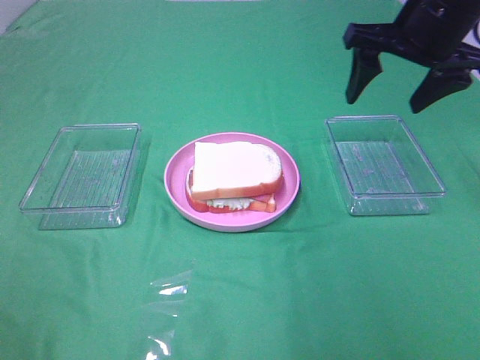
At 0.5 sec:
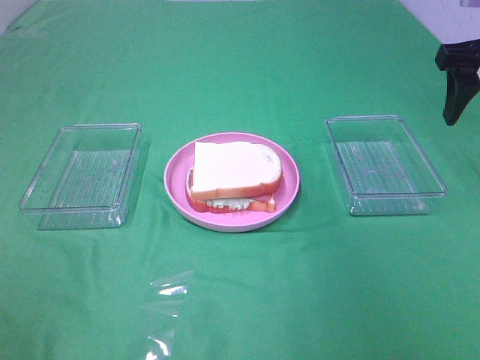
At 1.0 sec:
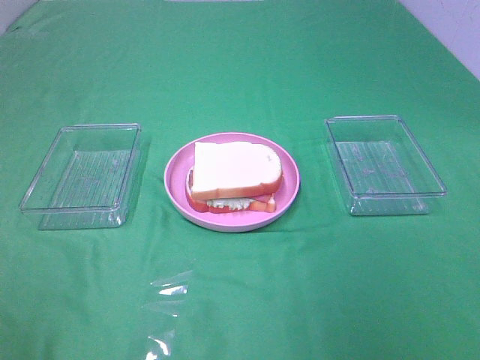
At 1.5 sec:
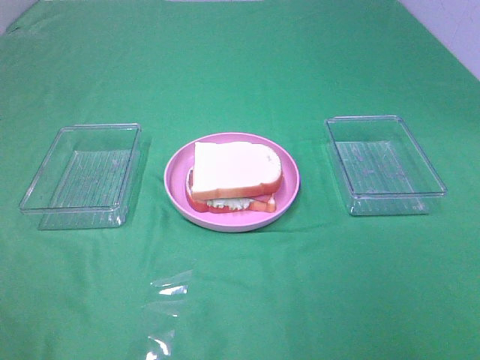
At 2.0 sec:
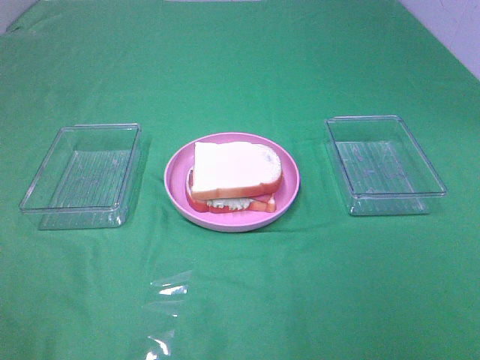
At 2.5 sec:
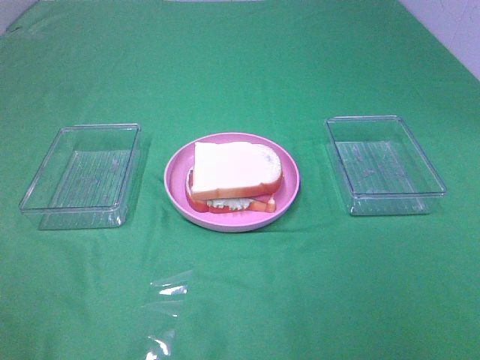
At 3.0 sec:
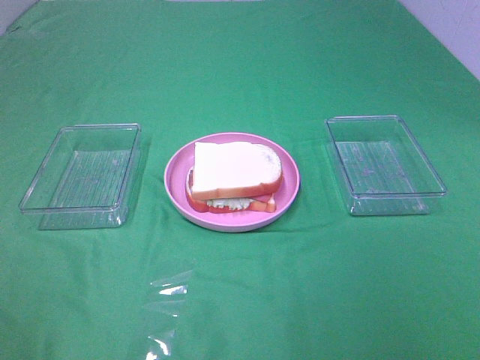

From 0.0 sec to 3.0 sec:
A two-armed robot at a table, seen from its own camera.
Task of the whole recording: Make sandwiches.
From 0.0 sec to 1.5 sec: The right gripper shifts roughly 30 cm backward.

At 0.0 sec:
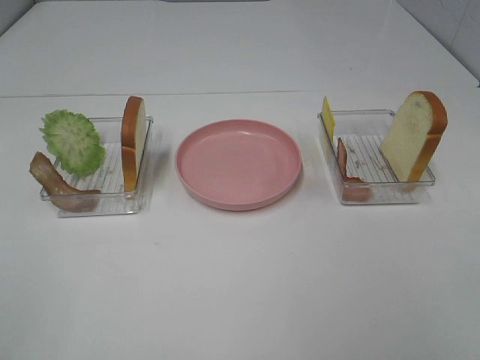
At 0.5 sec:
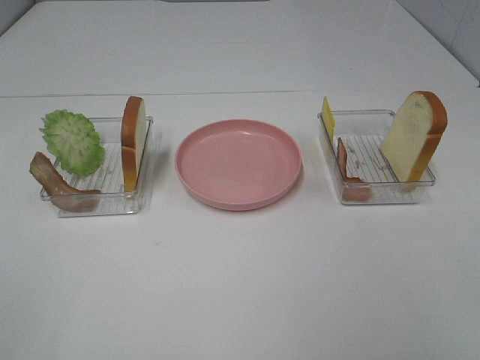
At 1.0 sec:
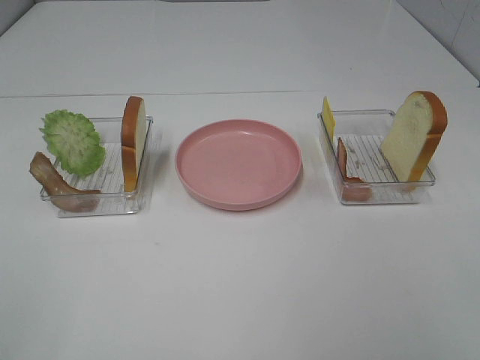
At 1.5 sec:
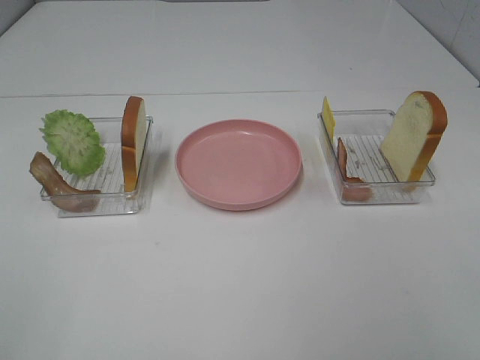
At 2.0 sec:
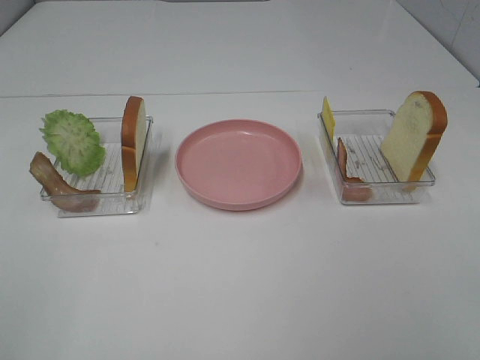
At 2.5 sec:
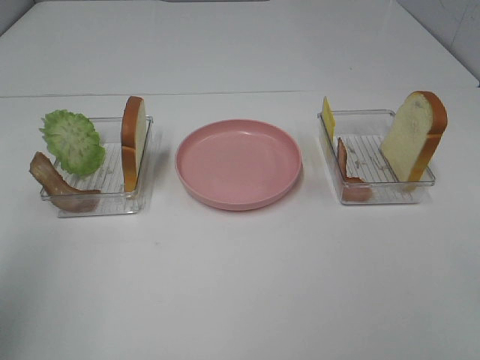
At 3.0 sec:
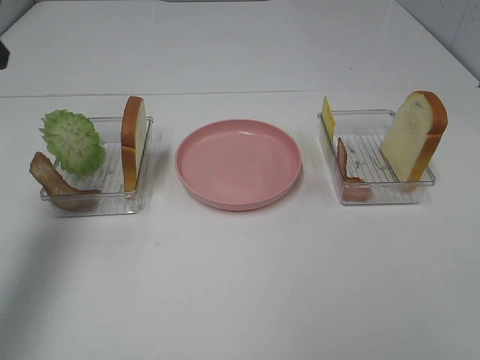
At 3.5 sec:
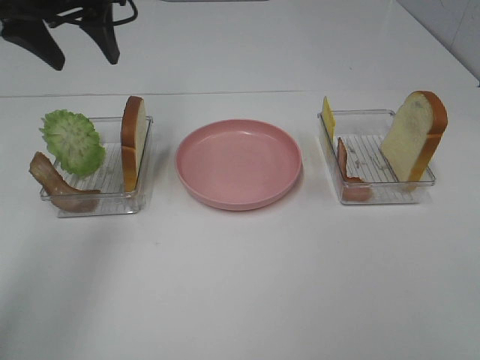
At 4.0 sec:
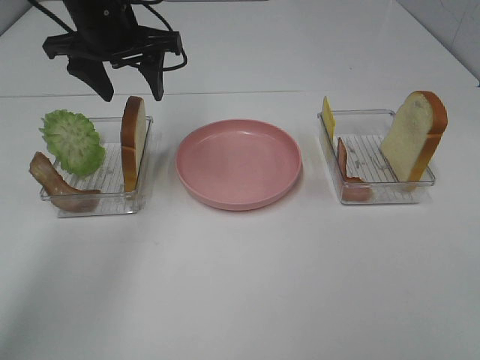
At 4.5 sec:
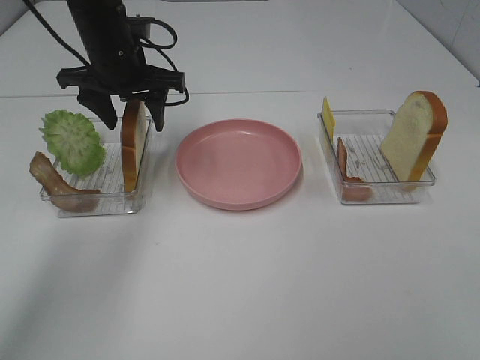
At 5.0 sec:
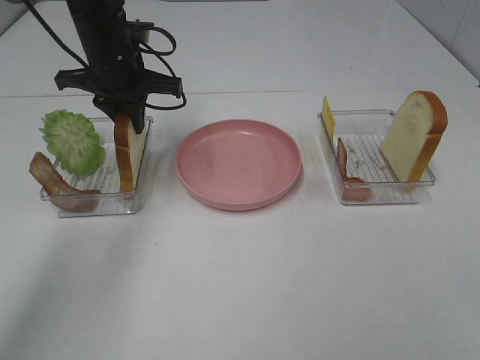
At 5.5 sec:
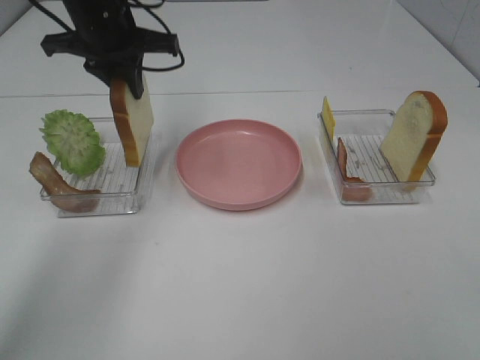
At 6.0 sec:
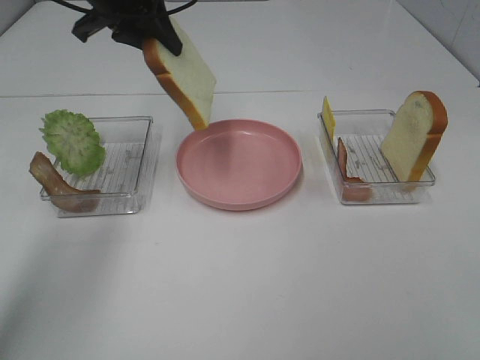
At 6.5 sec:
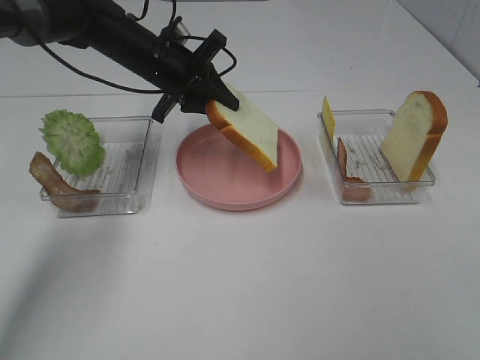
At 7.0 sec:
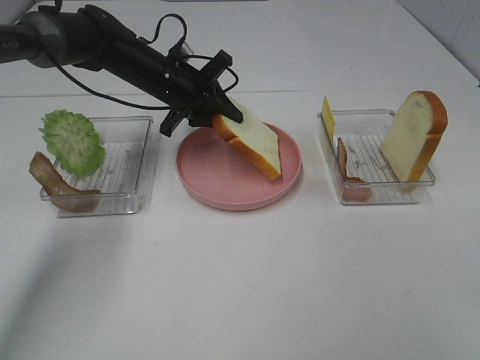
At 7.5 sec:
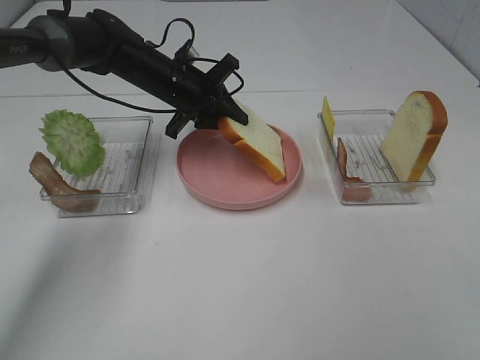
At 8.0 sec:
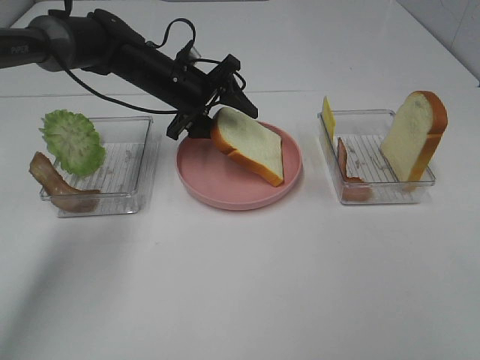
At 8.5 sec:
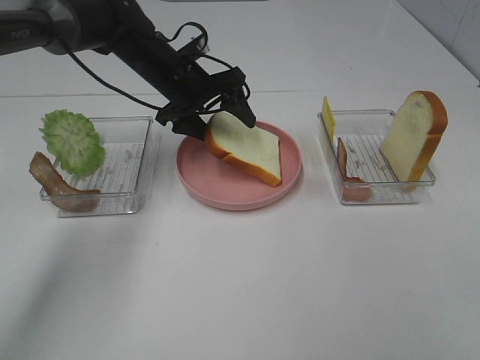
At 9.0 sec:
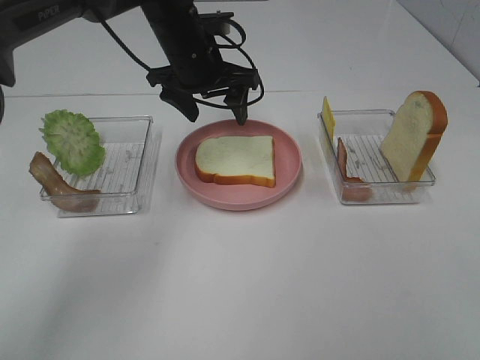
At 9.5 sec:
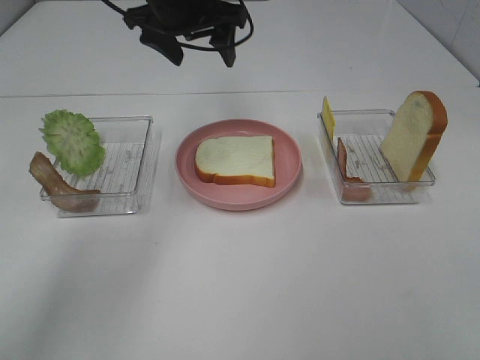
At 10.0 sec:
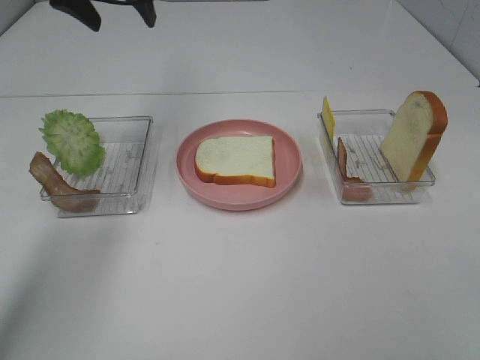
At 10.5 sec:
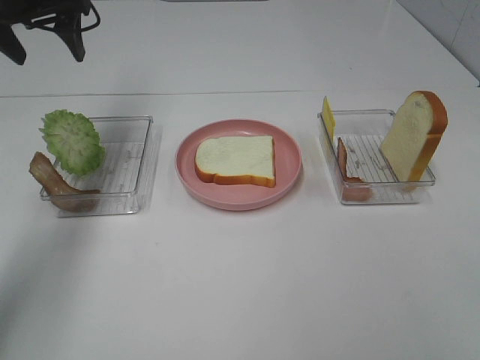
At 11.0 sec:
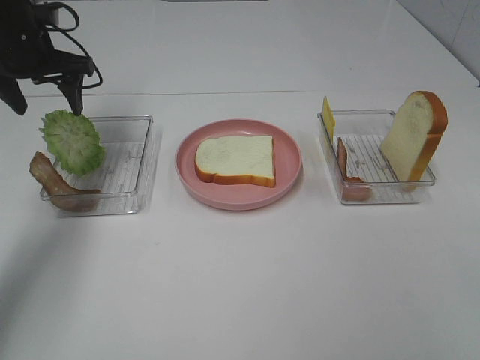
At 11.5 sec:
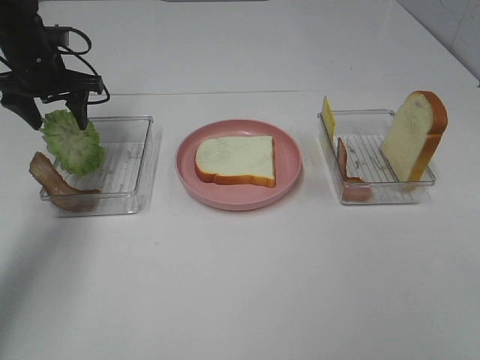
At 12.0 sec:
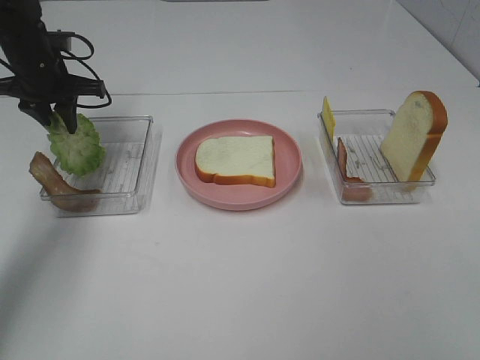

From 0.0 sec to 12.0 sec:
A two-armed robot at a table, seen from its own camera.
Task of the whole recording: Make sandwiches.
Step, from 0.0 sec to 5.0 sec: Left hand:grab the bread slice.
Step, from 5.5 sec to 9.0 sec: Left hand:place the bread slice on the plate.
From 2.0 sec to 4.0 sec: The left gripper shifts about 40 cm forward.
From 4.0 sec to 6.0 sec: The left gripper closes.
From 6.0 sec to 8.0 sec: The left gripper shifts approximately 15 cm downward, and opens its fingers.
From 8.0 sec to 10.0 sec: The left gripper goes approximately 20 cm upward and to the left.
From 10.0 sec to 12.0 sec: The left gripper heads downward and to the left, covering roughly 15 cm, and closes.

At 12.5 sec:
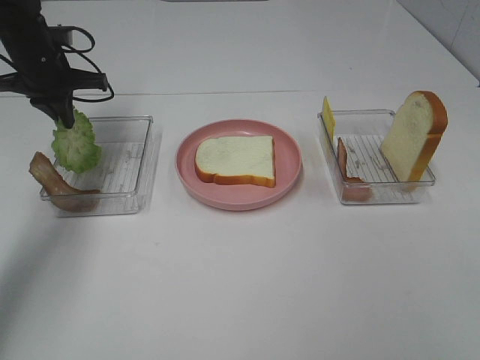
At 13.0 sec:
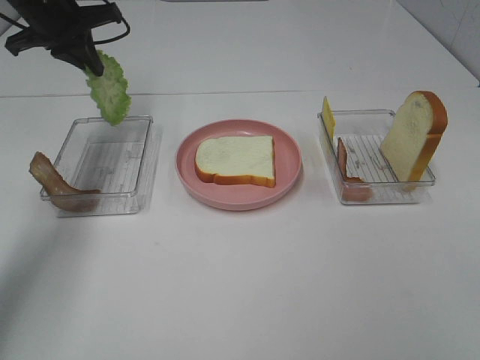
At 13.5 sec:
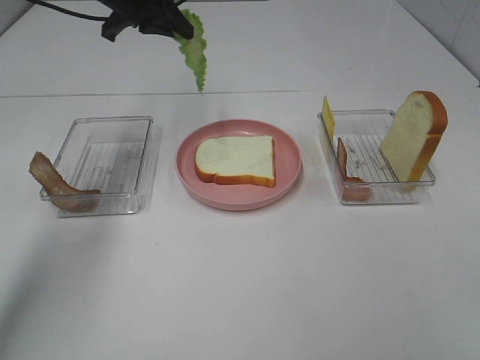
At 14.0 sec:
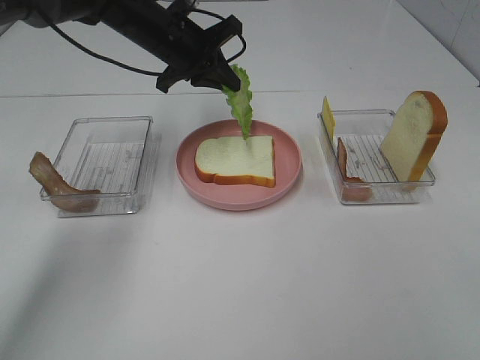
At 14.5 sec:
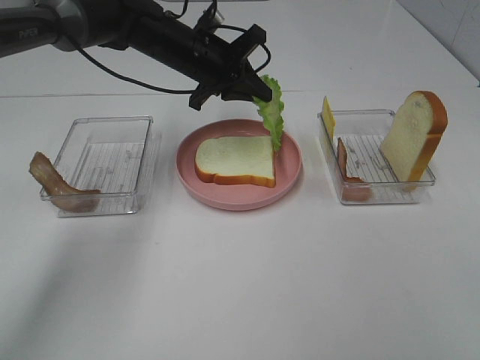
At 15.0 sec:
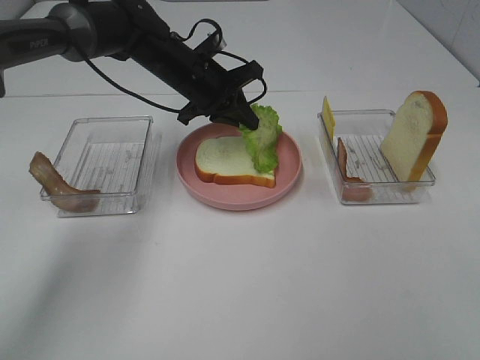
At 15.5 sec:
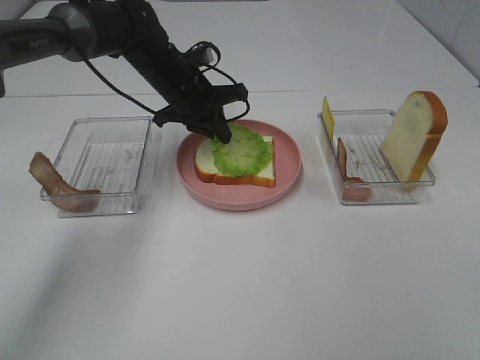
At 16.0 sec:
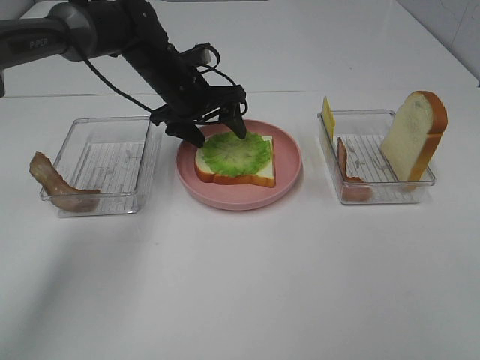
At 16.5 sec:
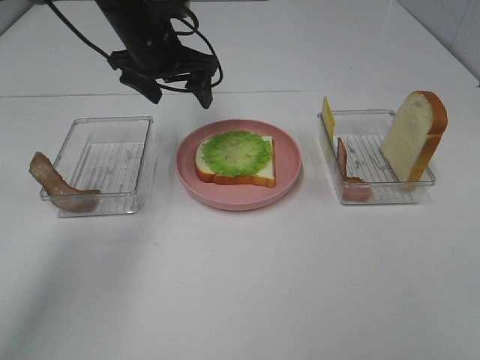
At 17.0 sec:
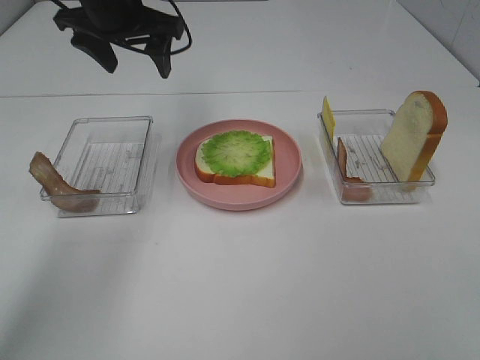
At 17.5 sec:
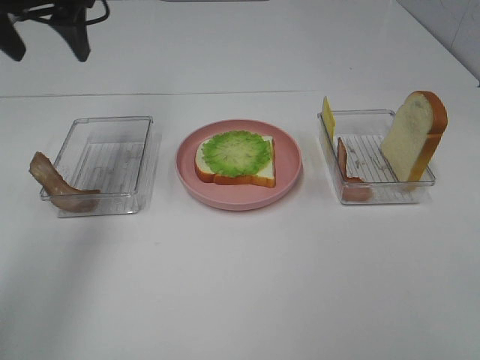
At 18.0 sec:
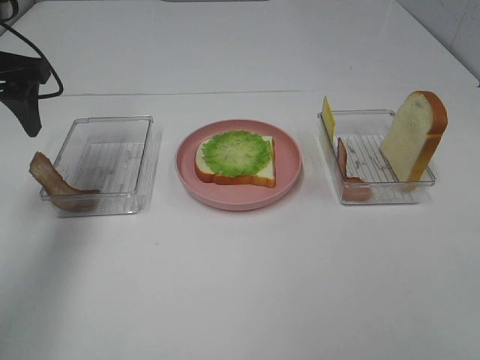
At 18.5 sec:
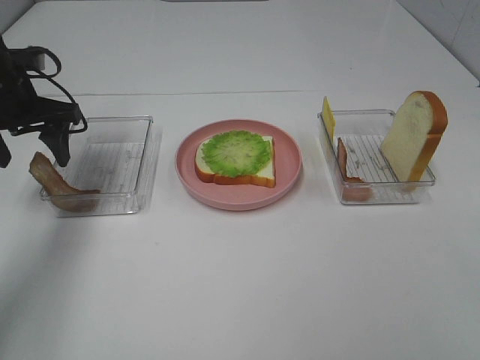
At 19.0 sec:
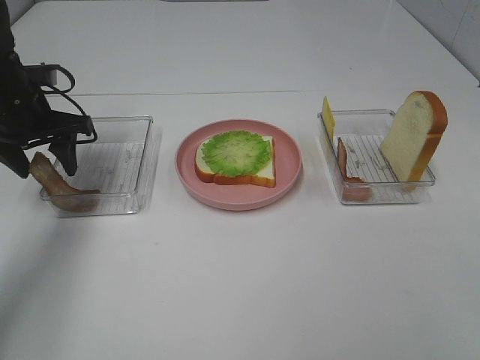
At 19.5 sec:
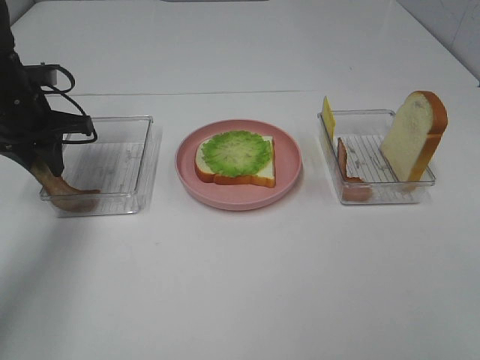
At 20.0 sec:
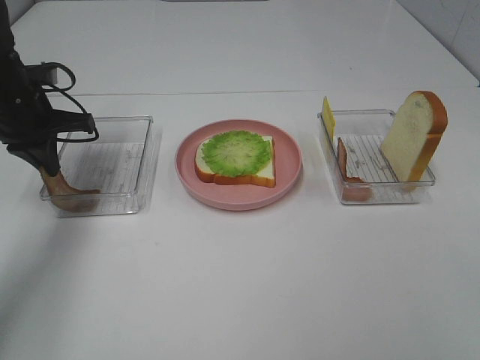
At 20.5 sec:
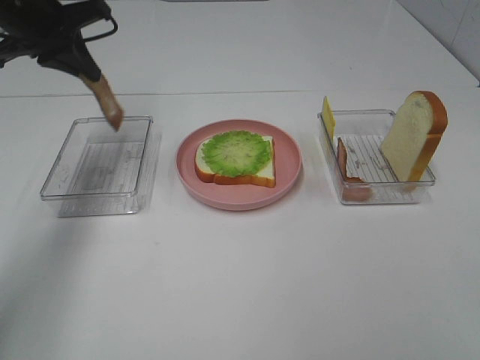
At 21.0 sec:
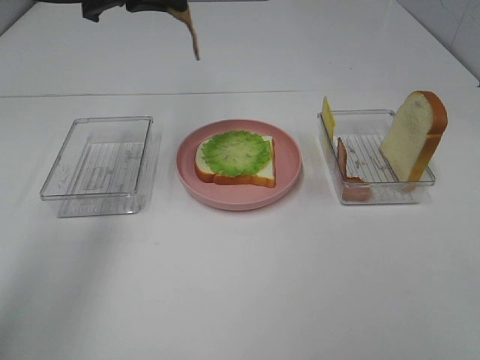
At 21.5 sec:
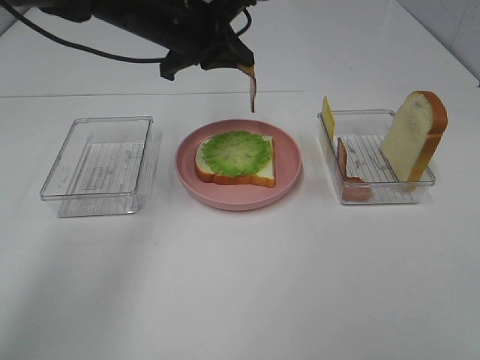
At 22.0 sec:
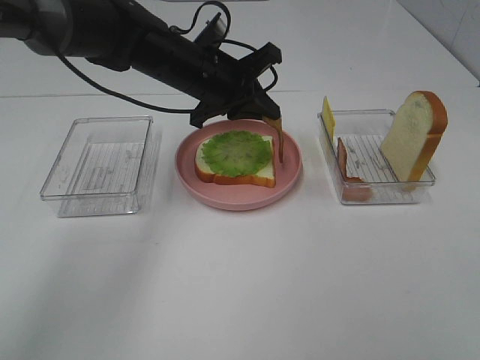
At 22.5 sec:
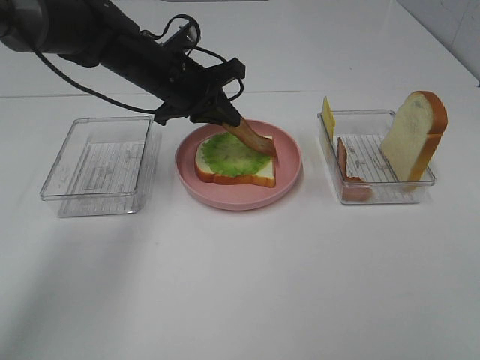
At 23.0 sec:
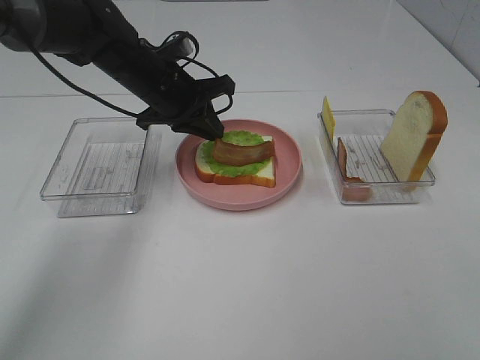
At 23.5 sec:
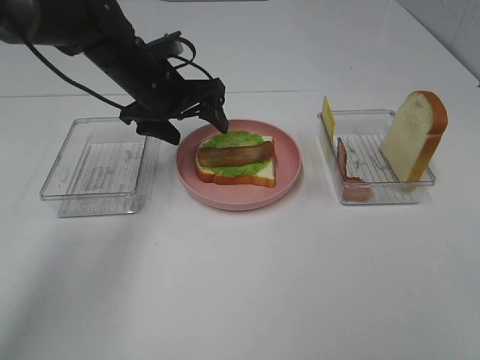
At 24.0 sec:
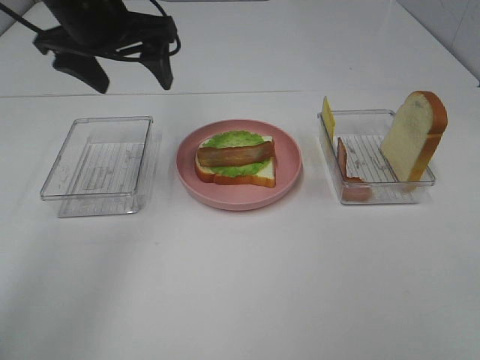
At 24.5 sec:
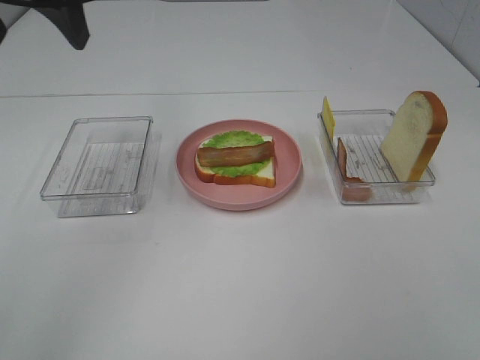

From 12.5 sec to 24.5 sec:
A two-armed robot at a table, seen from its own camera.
Task of the whole recording: Make sandwiches.
Step, from 13.0 sec to 16.0 sec: Left hand:place the lettuce slice on the bread slice.
Step, from 16.5 sec to 19.5 sec: Left hand:grab the bacon.
Step, from 20.0 sec to 23.0 sec: Left hand:place bacon on lettuce slice.
From 12.5 sec to 14.5 sec: The left gripper heads to the right, covering some 20 cm.
From 14.5 sec to 16.5 sec: The left gripper goes about 5 cm to the left, and opens.
From 16.5 sec to 18.5 sec: The left gripper shifts about 15 cm to the left and backward.
From 18.5 sec to 20.5 sec: The left gripper is displaced upward by about 10 cm, and closes its fingers.
From 20.5 sec to 22.5 sec: The left gripper travels to the right and downward by roughly 20 cm.
From 22.5 sec to 24.5 sec: The left gripper goes approximately 25 cm upward, backward and to the left, and opens.
